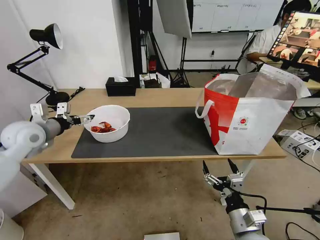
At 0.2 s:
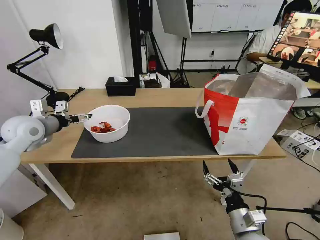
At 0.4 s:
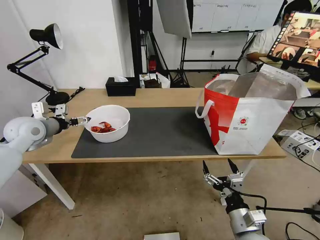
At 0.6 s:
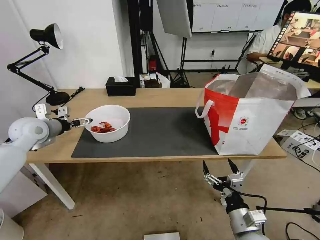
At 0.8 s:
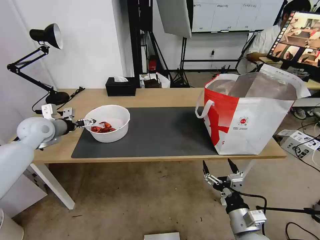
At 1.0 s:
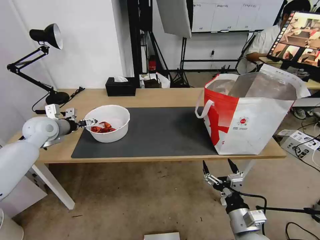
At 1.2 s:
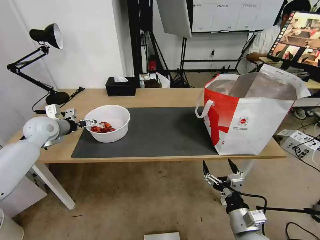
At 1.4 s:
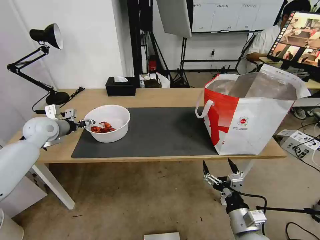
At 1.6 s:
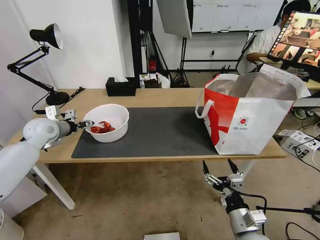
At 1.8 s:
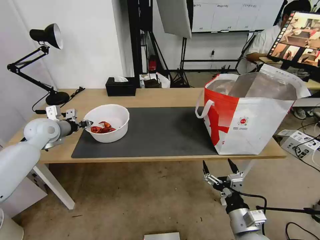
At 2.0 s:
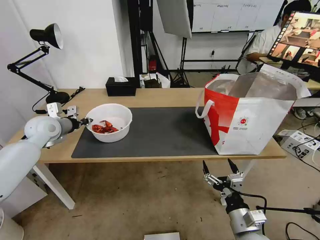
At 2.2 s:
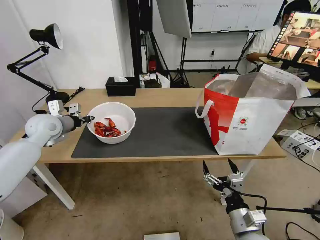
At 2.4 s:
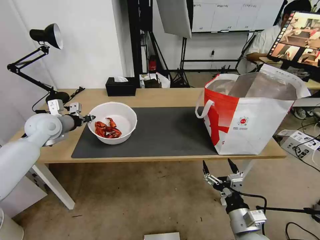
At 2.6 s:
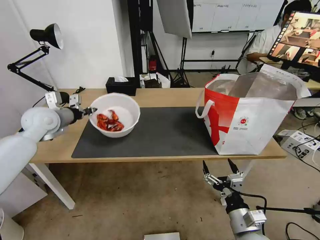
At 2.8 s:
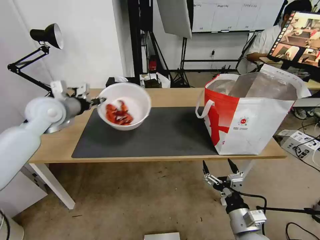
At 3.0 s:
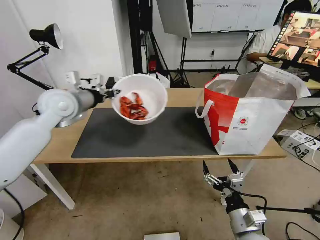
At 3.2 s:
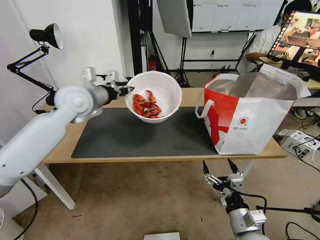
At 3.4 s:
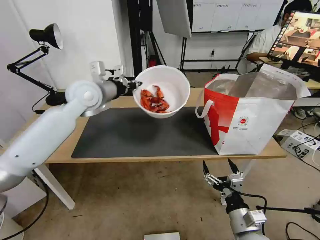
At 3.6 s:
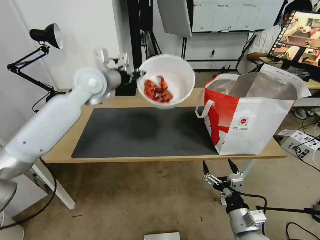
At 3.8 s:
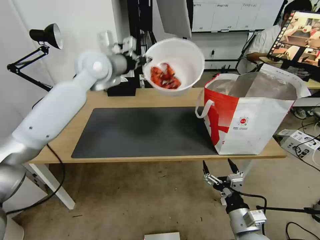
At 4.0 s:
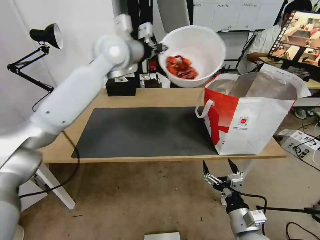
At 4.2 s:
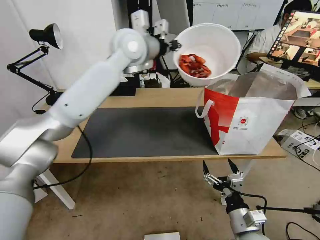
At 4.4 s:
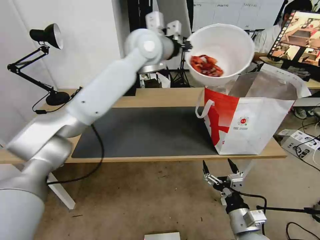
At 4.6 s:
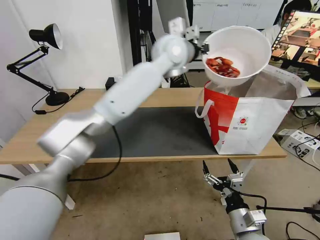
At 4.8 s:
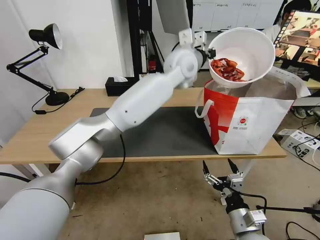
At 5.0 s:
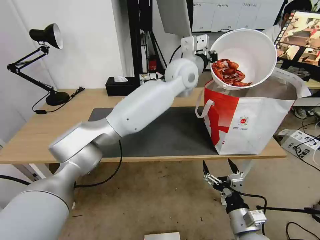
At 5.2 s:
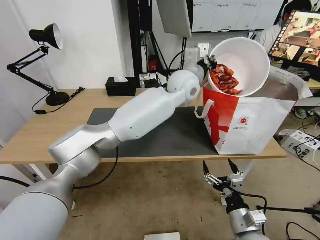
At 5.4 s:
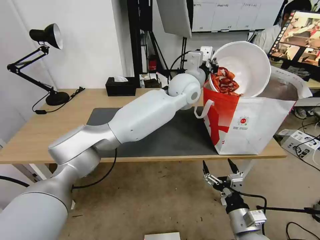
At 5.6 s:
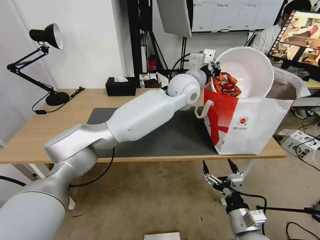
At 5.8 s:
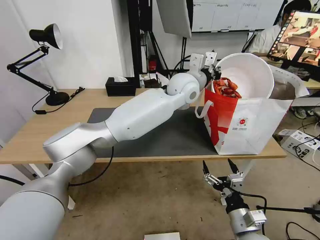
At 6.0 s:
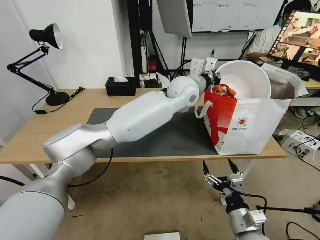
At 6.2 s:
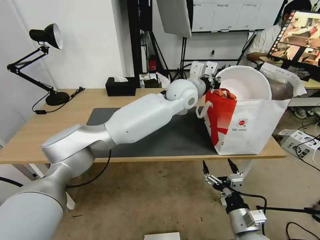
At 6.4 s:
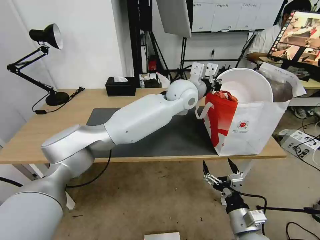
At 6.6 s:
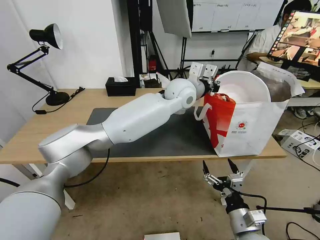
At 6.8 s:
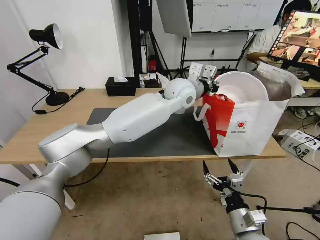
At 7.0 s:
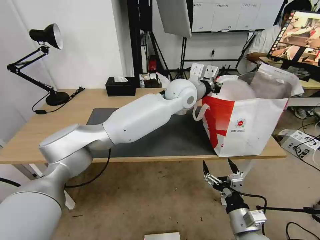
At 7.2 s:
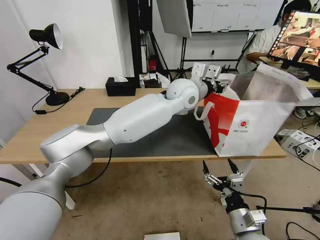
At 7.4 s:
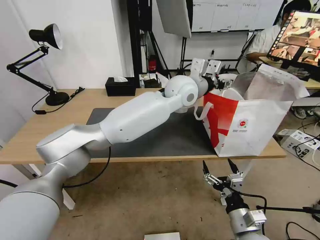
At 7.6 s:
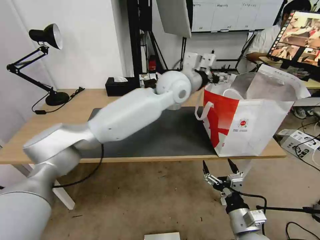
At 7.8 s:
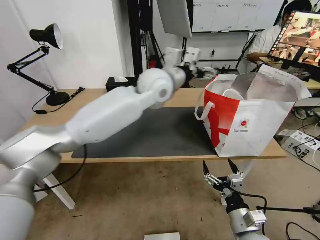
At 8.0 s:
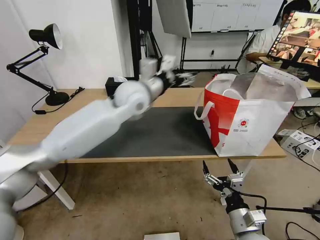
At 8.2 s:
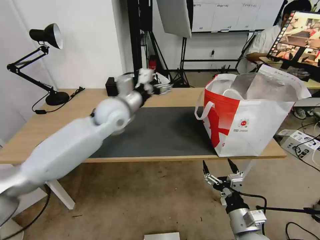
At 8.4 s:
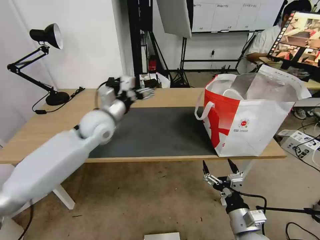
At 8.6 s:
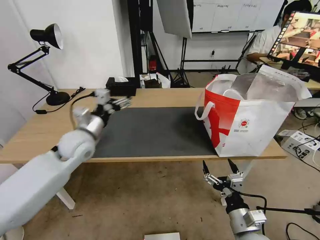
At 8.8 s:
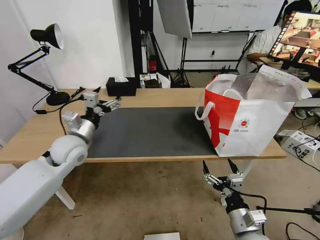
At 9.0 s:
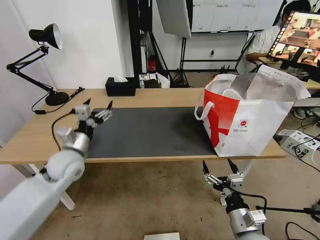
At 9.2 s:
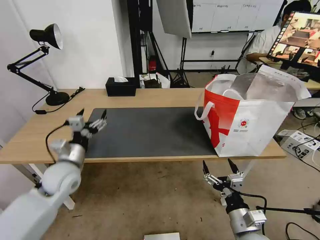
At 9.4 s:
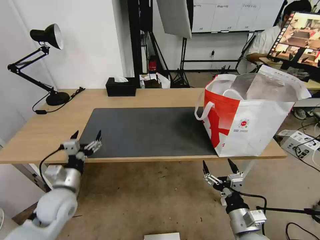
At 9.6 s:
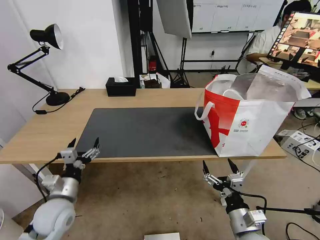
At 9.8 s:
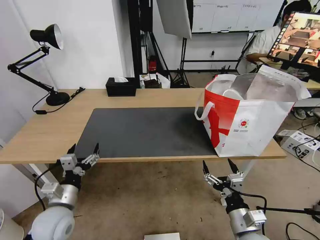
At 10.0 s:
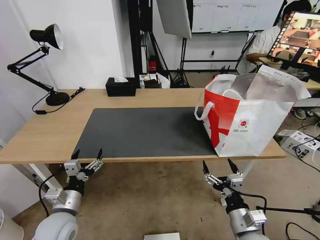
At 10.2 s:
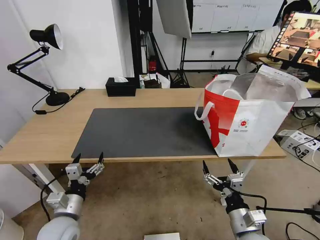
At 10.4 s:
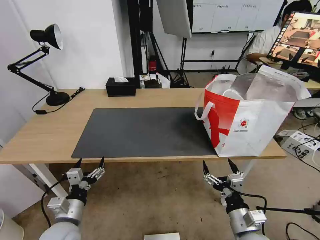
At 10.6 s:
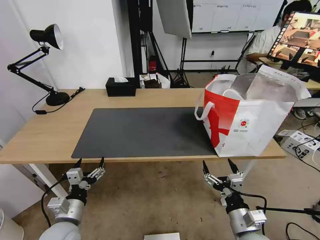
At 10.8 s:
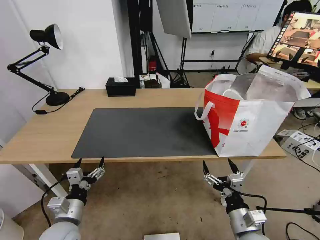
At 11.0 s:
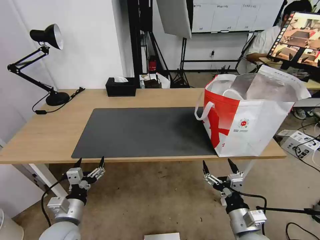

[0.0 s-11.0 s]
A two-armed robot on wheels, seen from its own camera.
Task of the whole recording: Pick up the trash from the table and place it into the takeout bag.
0.0 to 1.6 s: The left gripper heads forward, covering roughly 5 cm, and closes.
1.6 to 3.2 s: The left gripper is displaced to the right and upward by approximately 20 cm, and closes up.
3.2 to 4.8 s: The left gripper goes some 30 cm to the right.
4.8 to 6.2 s: The left gripper heads downward, covering some 10 cm.
6.2 to 7.8 s: The left gripper travels to the left by about 10 cm, and opens its fingers.
7.8 to 9.4 s: The left gripper travels to the left, downward and backward by roughly 40 cm.
9.4 to 11.0 s: The left gripper shifts about 10 cm backward.

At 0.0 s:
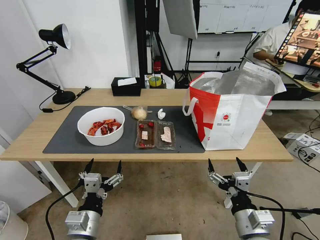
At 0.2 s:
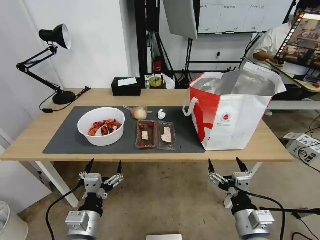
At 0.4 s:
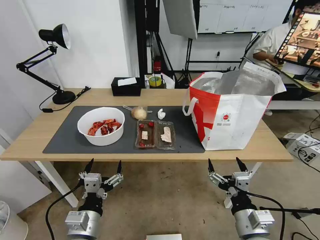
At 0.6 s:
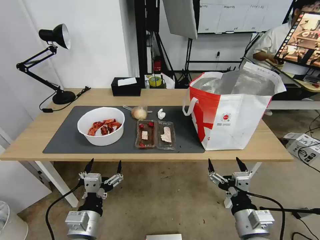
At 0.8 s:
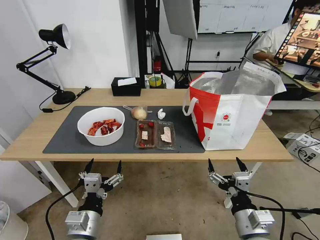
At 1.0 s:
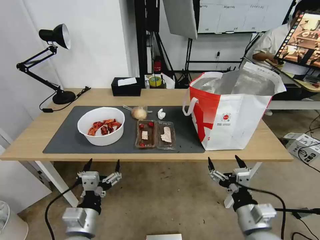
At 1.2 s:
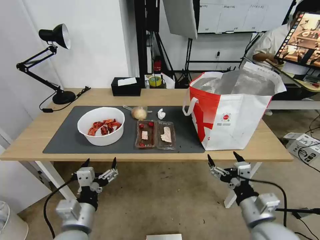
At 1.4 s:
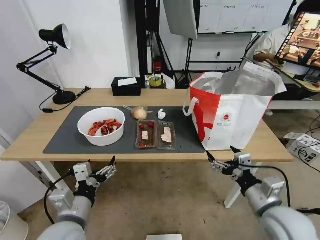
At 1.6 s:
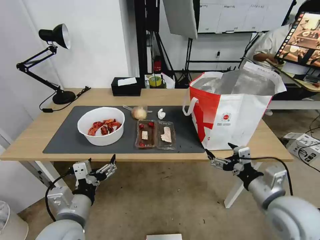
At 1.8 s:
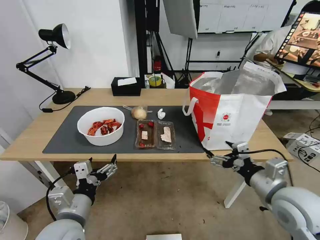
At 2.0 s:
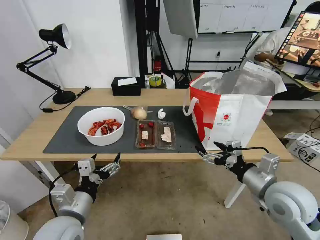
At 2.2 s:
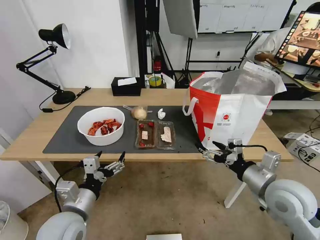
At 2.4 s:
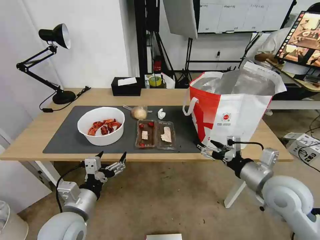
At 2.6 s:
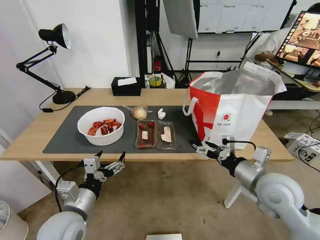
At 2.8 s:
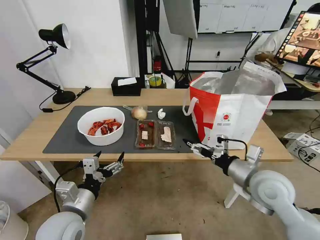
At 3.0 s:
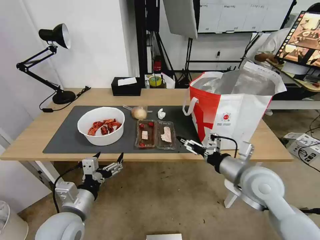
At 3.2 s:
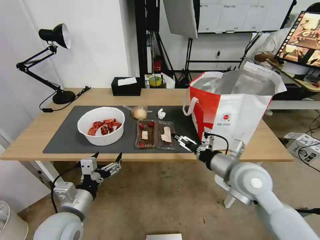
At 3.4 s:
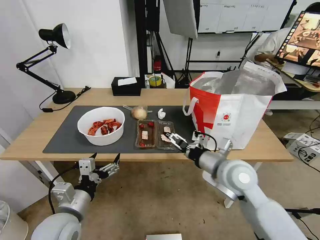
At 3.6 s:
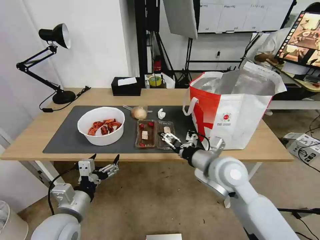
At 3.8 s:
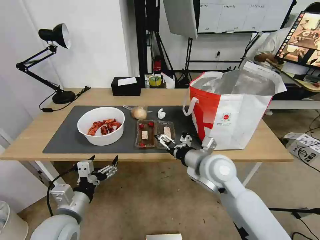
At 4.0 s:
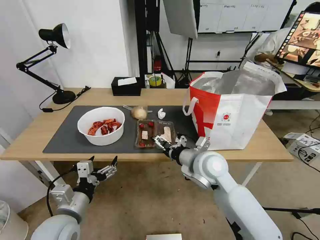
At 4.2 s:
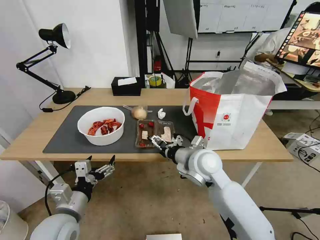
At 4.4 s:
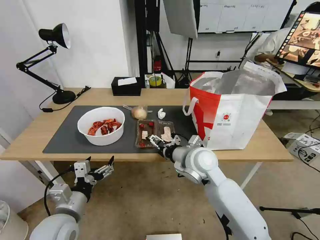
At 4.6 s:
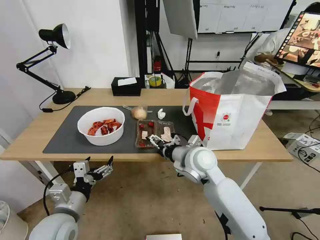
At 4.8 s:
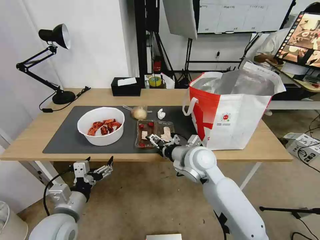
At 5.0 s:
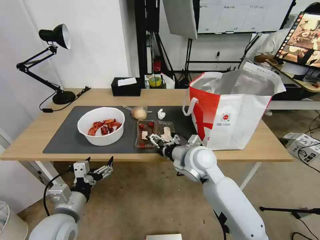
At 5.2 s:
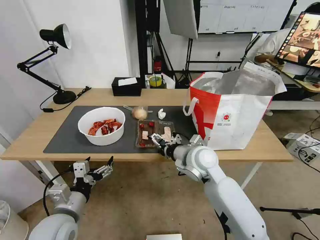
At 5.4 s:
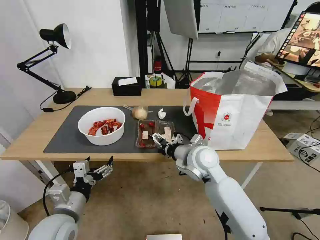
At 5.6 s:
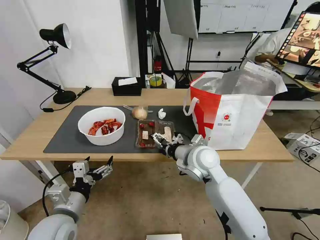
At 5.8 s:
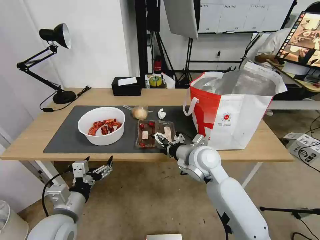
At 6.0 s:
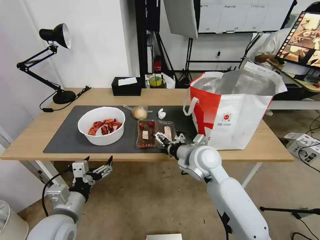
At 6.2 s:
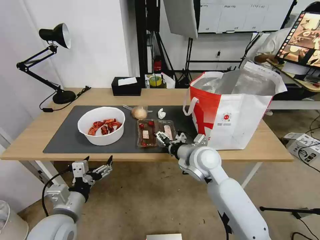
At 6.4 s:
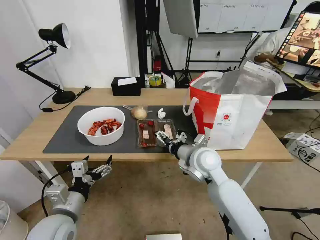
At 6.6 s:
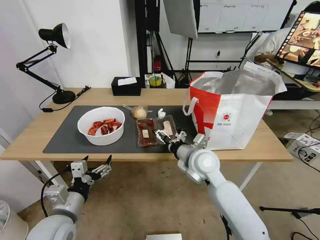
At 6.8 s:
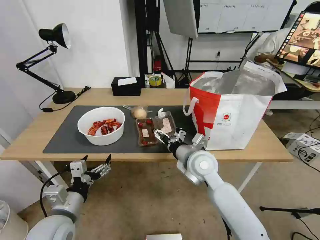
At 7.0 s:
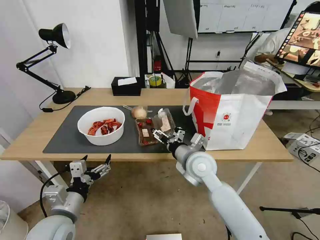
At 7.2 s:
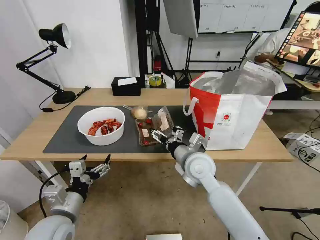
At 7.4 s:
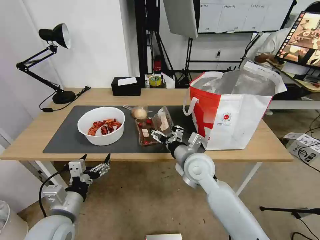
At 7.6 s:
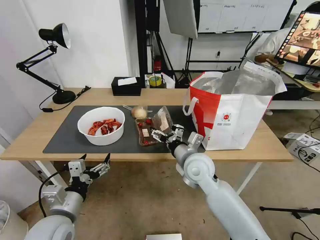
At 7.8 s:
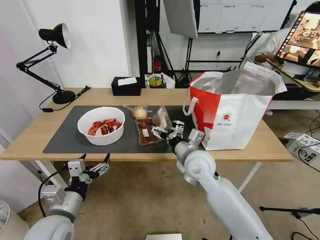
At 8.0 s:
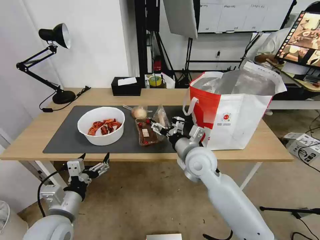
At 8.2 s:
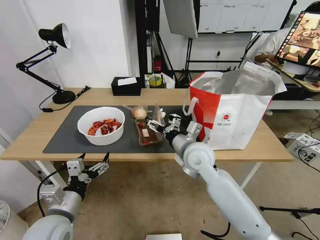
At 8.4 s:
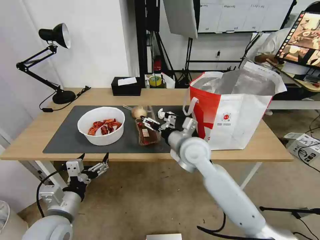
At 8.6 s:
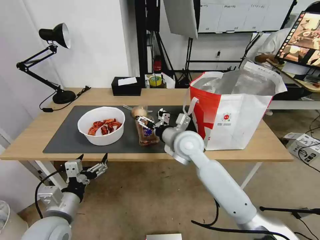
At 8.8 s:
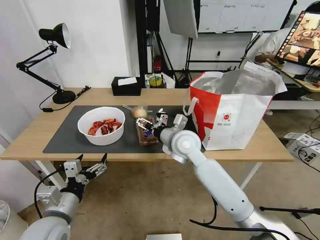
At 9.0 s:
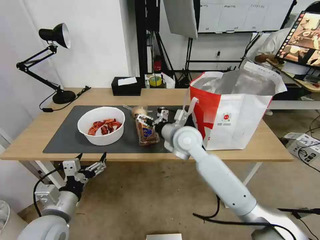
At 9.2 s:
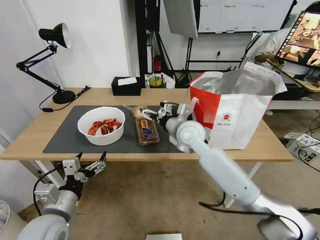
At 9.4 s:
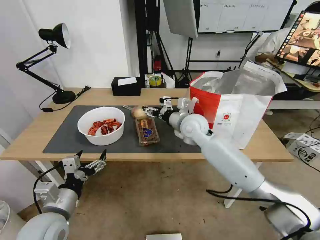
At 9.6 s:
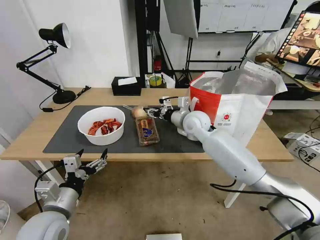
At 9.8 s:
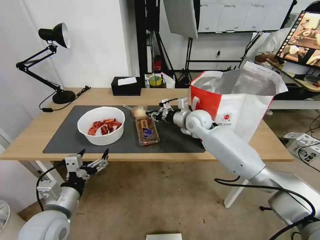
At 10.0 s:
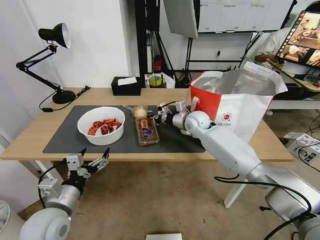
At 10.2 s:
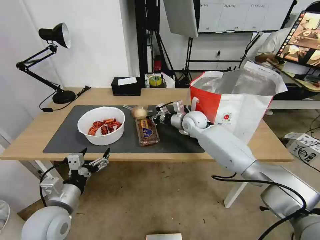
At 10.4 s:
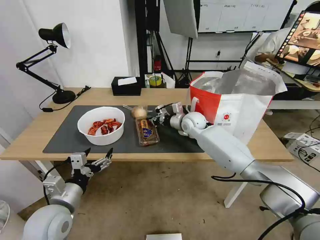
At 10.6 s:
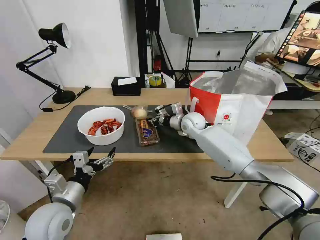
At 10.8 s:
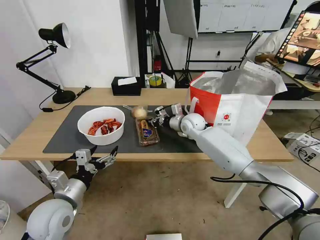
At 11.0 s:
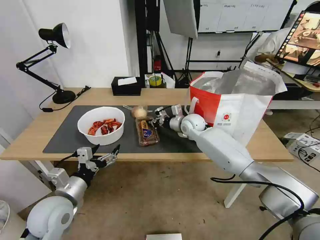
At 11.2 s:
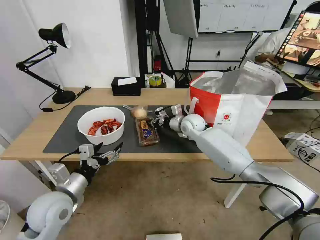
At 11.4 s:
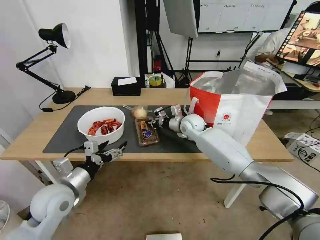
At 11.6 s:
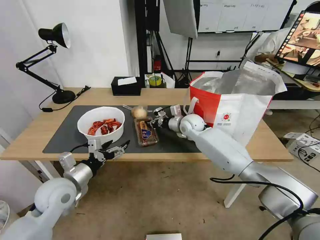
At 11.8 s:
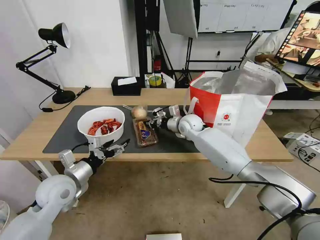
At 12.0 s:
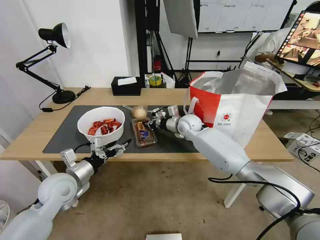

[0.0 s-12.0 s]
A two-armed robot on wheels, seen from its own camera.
Task of the whole recording: Pick up the trash from the table and place it into the takeout bag.
1.6 to 3.0 s: The right gripper heads forward, covering some 5 cm.
3.0 to 4.4 s: The right gripper shifts about 15 cm to the left and forward.
4.4 to 6.0 s: The grippers move only a little.
7.6 to 9.0 s: The right gripper moves forward and upward, some 10 cm.
9.0 to 10.4 s: The right gripper shifts roughly 15 cm forward, and closes its fingers.
10.4 to 12.0 s: The left gripper travels forward by roughly 10 cm.
